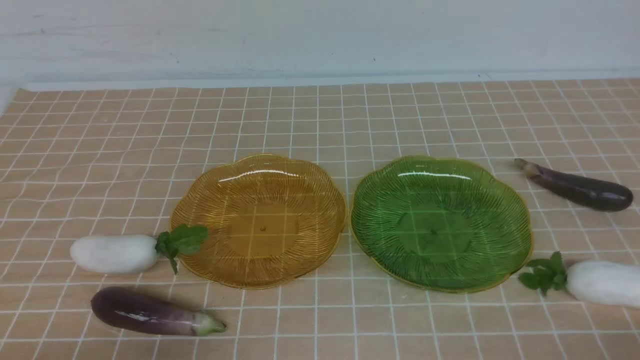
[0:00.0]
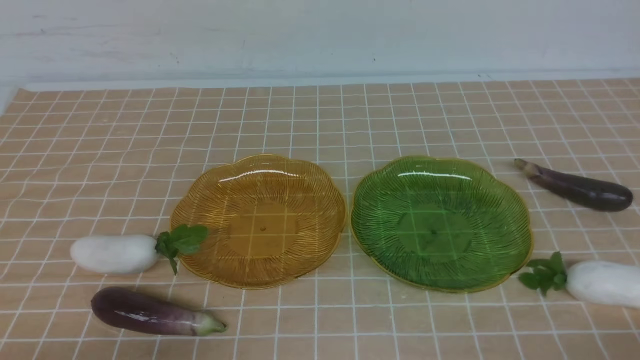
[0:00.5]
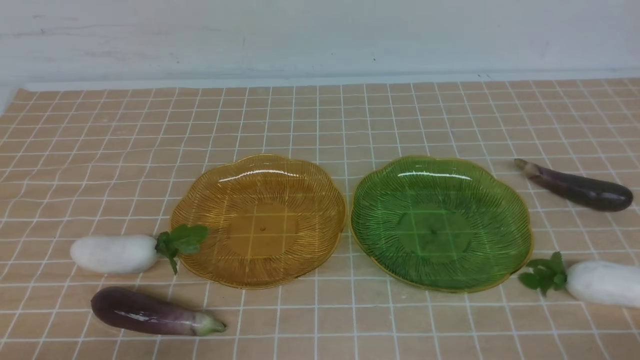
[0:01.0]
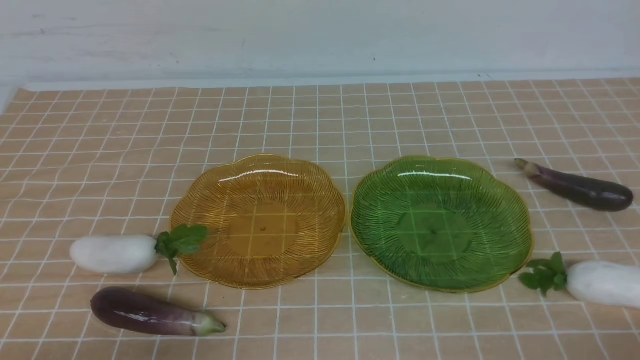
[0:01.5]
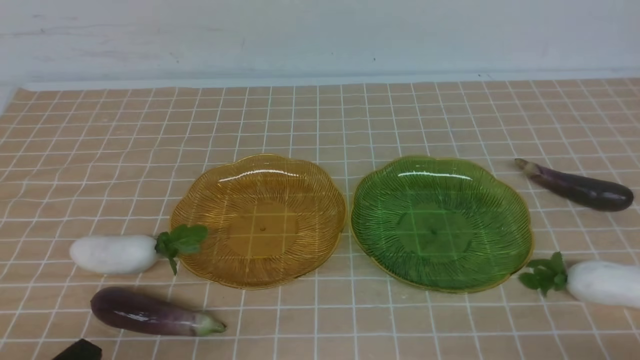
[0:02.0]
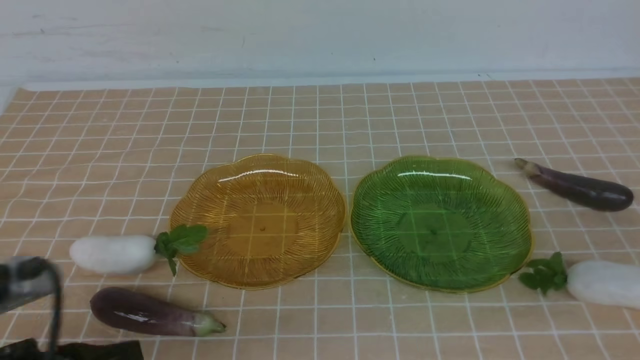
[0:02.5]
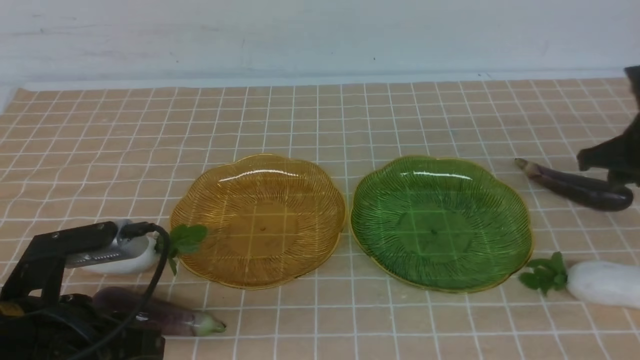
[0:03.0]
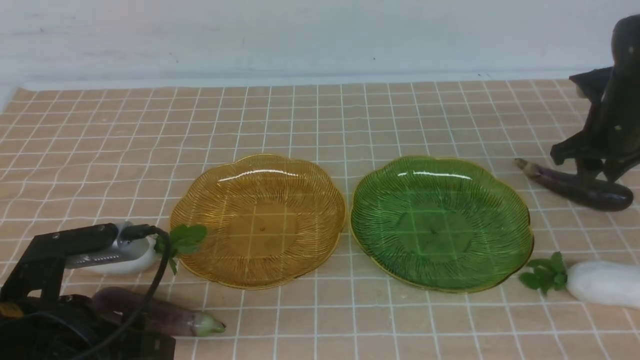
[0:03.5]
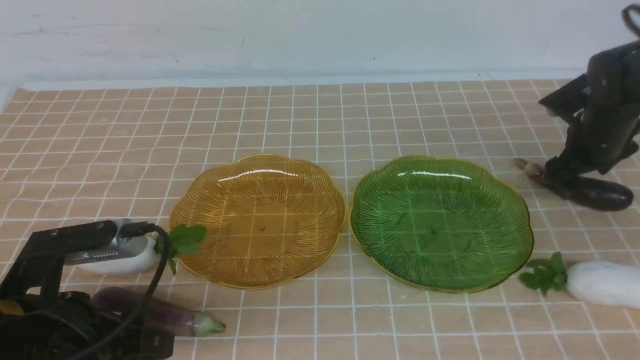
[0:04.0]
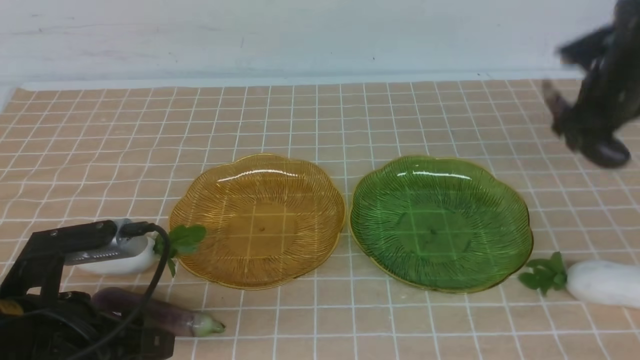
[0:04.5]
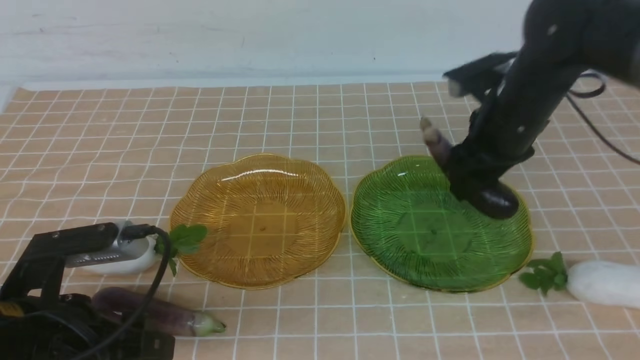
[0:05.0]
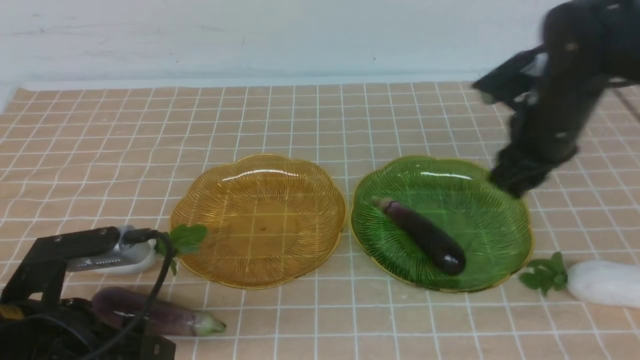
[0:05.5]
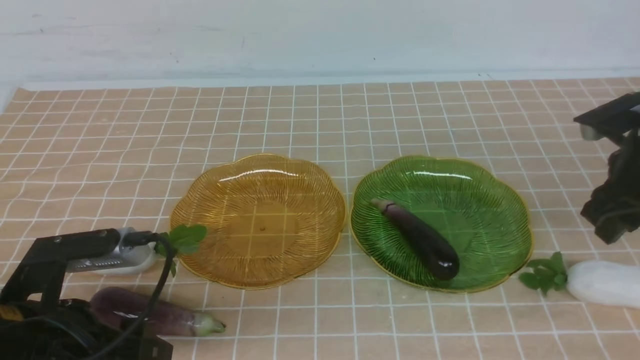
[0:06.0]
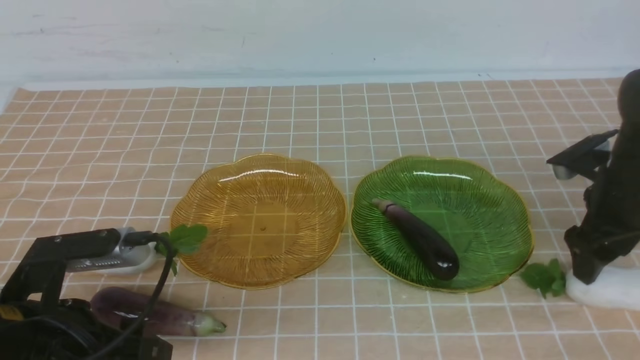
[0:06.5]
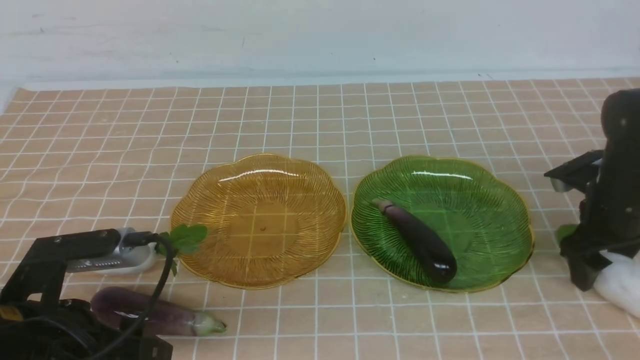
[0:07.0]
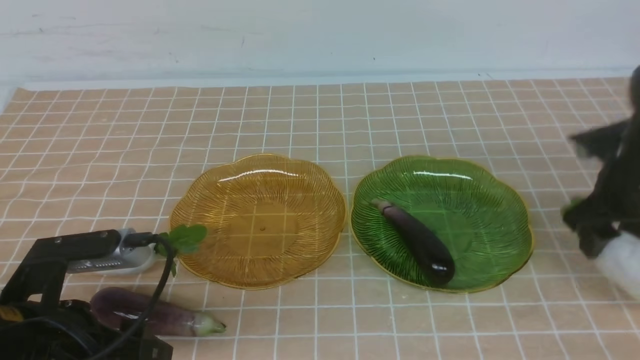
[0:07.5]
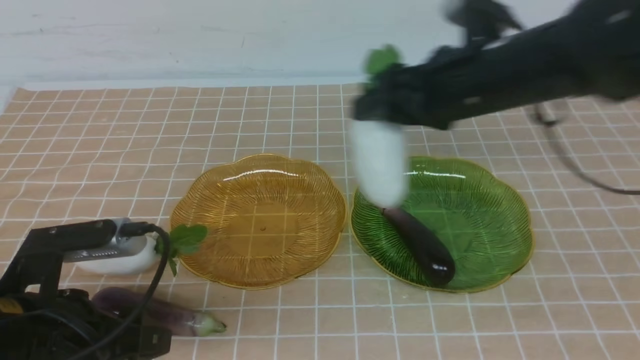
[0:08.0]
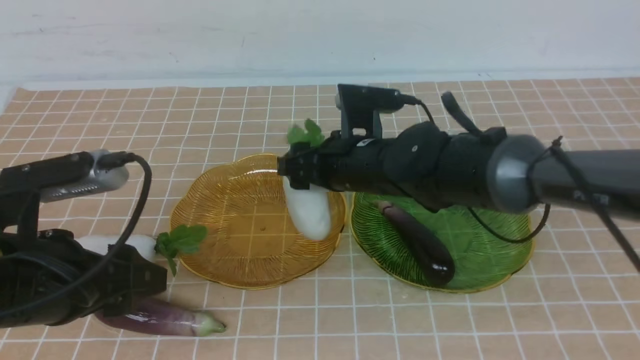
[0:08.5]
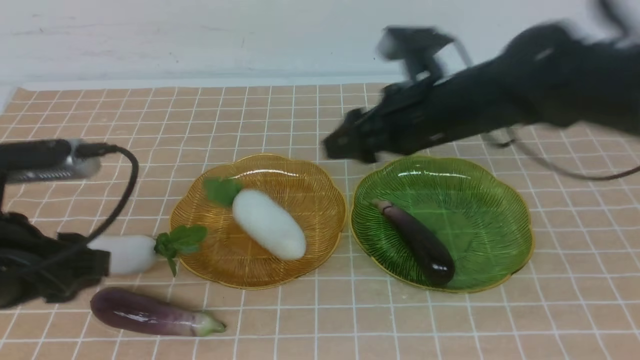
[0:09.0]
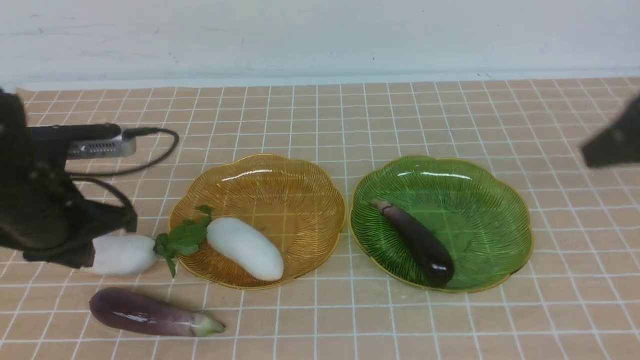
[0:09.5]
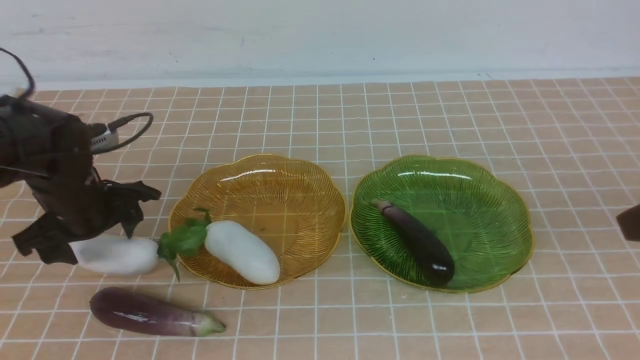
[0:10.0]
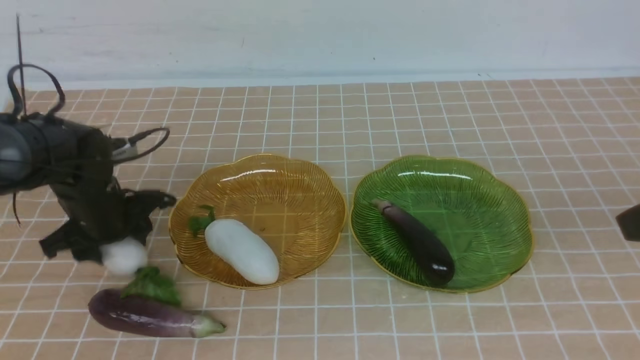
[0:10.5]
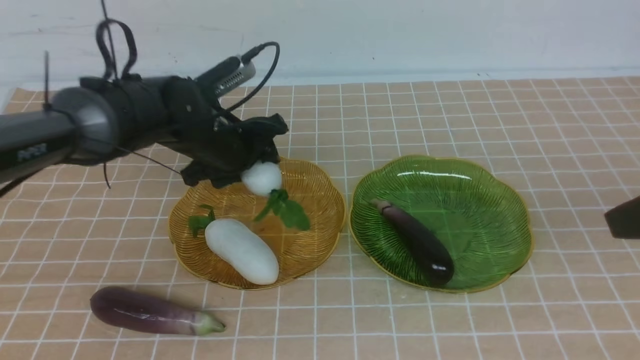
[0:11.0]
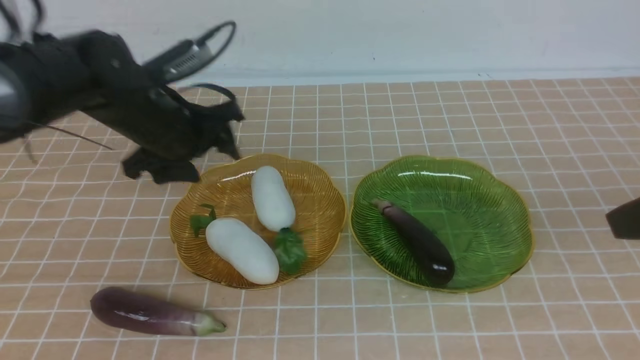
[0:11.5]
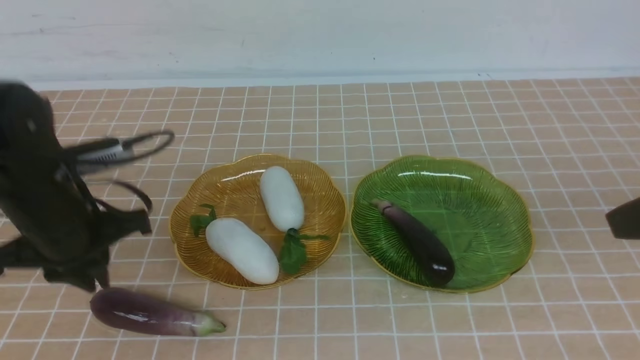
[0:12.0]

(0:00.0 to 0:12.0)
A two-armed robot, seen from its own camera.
Step, 0:00.0 - 0:05.0: use the right arm to grab an eggplant and put it into the right plate.
Step, 0:05.5 - 0:08.5: use the right arm to grab a radish and put it into the left plate.
Step, 0:09.0 - 0:11.5: use the left arm to grab a radish and put it into the left plate.
0:02.0 - 0:04.0: The right gripper is displaced forward by some 40 cm, and opens up. Meanwhile the left gripper moves forward, approximately 10 cm, and opens its fingers.
0:04.0 - 0:06.0: The right gripper travels backward by roughly 10 cm, moves some 15 cm to the left and comes back, and closes, then opens again.
0:06.0 - 0:08.0: The right gripper travels to the left by approximately 25 cm.
0:08.0 - 0:10.0: The right gripper travels to the right, backward and upward by roughly 30 cm, and closes its fingers, while the left gripper goes approximately 20 cm forward, and closes, then reopens.
0:10.0 - 0:12.0: The left gripper travels backward by approximately 10 cm, and closes, then opens again.

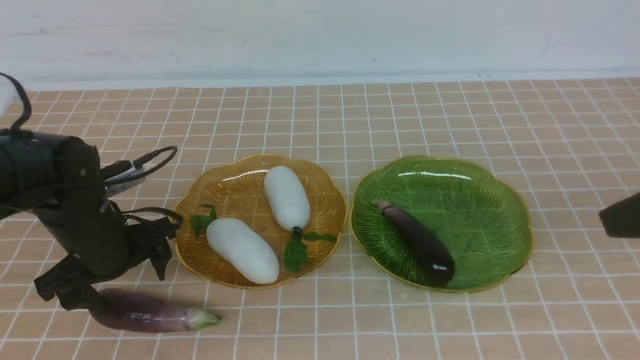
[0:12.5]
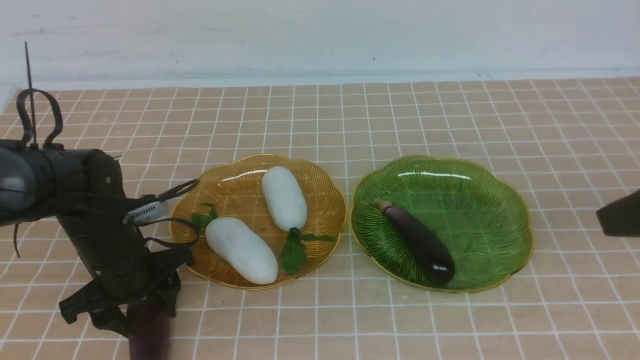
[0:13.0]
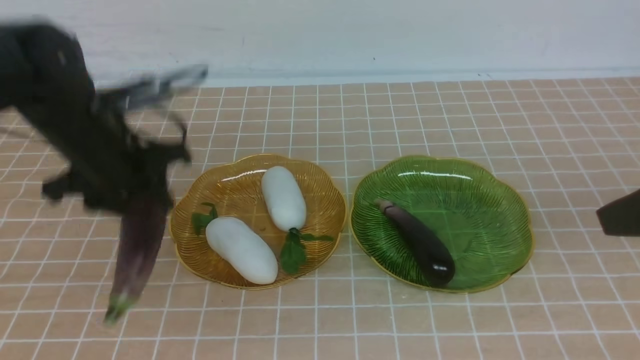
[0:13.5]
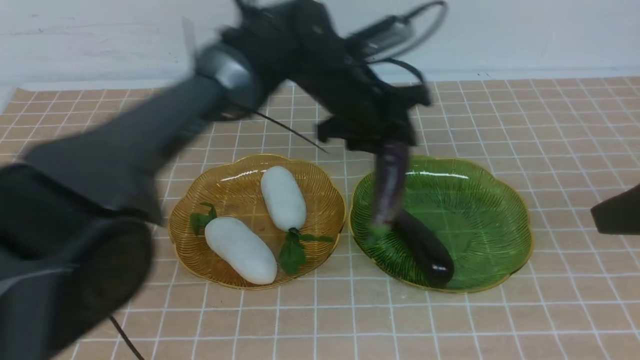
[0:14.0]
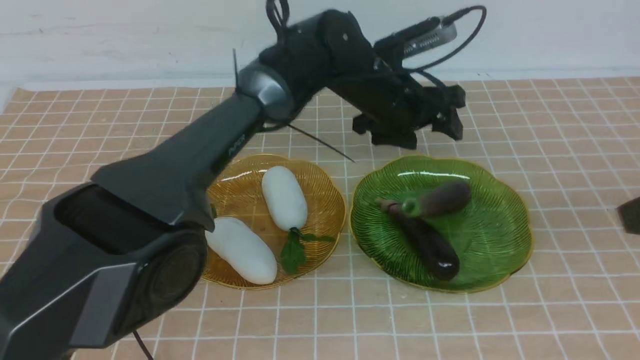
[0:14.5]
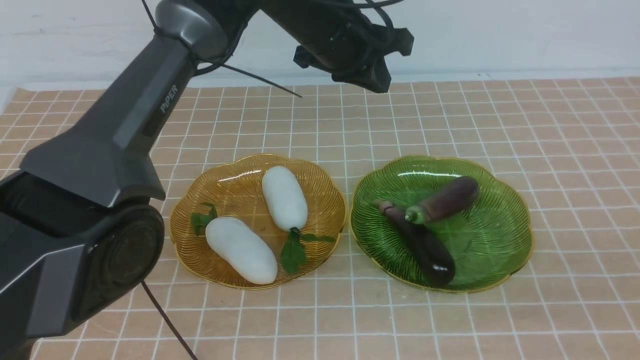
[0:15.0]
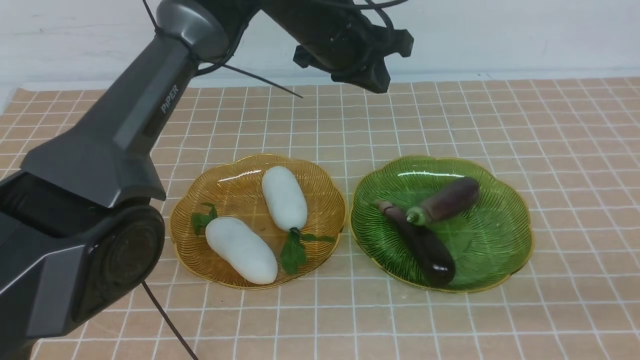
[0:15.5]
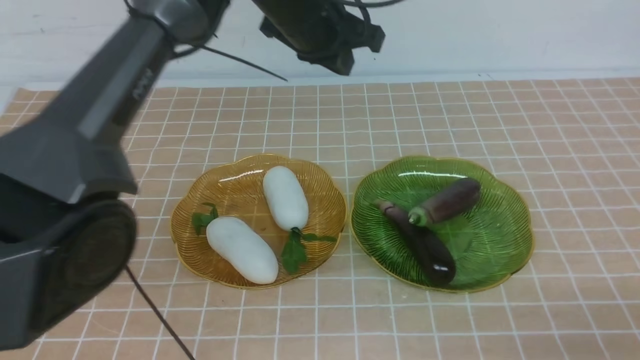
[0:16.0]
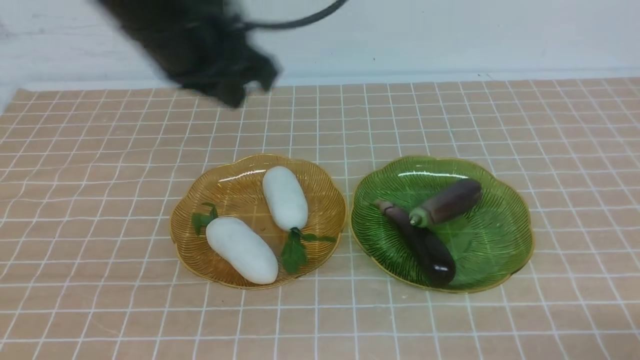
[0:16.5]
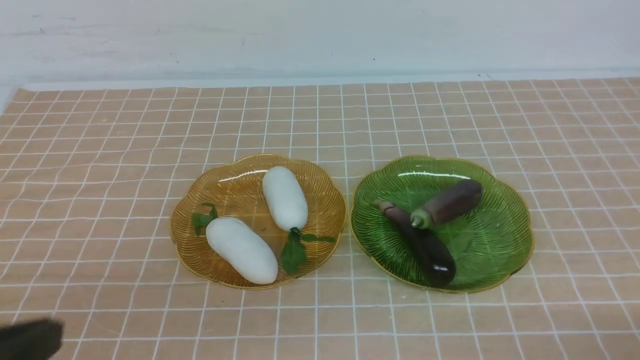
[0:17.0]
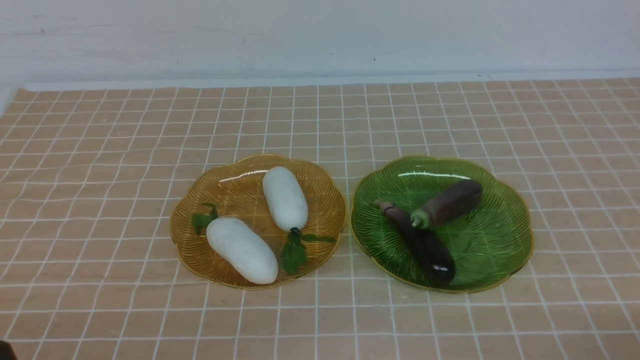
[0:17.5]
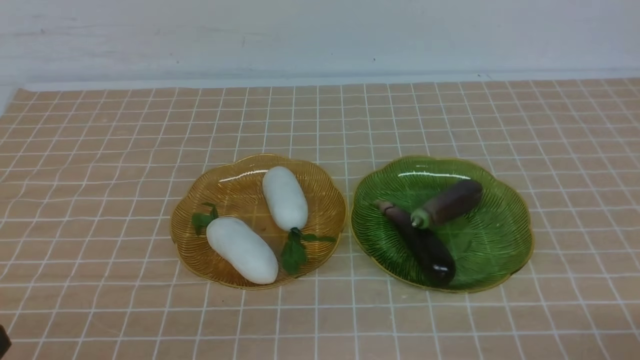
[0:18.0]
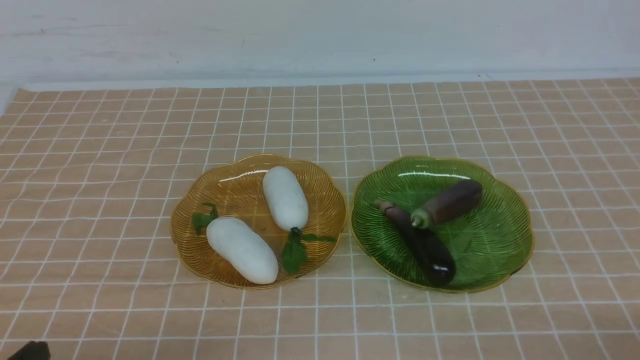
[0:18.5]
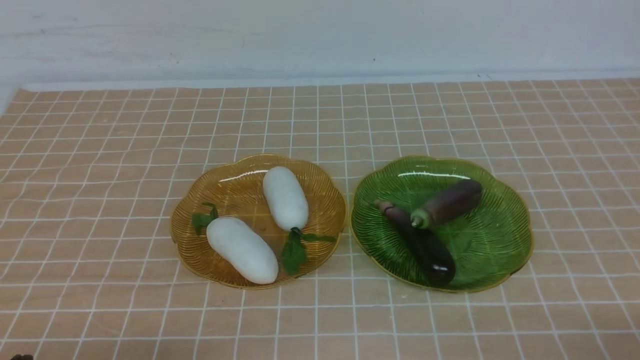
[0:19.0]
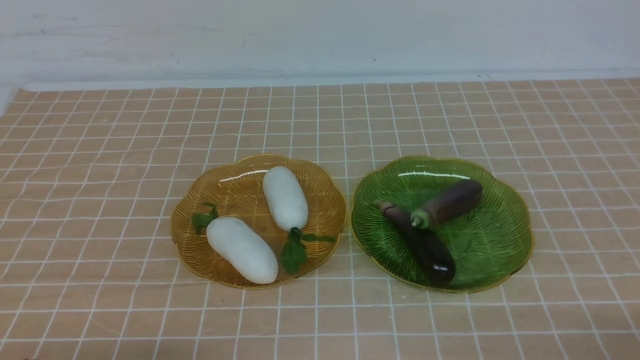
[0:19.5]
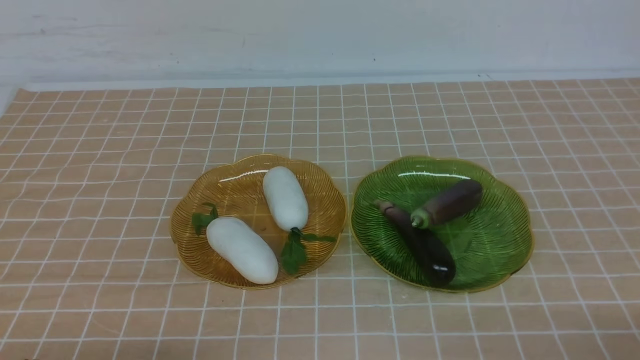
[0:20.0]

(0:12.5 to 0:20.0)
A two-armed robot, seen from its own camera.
Step, 0:12.5 - 0:14.5: use the left arm to grab an eggplant and put it into the right plate.
0:12.5 - 0:14.5: The right gripper changes place by approximately 5 cm. Meanwhile the left gripper shifts roughly 30 cm to the right, forward and upward, and closes up.
0:14.5 - 0:16.5: The right gripper moves downward, about 20 cm. The left gripper shifts roughly 25 cm backward, to the left and upward, and closes.
0:16.5 - 0:18.0: The left gripper shifts about 30 cm backward, downward and to the left.
